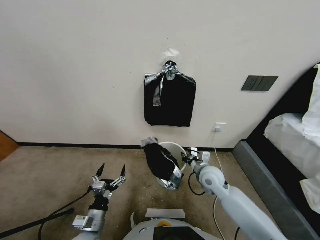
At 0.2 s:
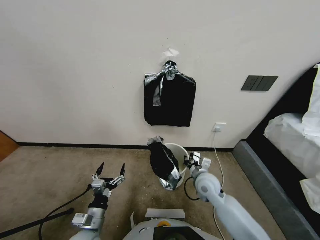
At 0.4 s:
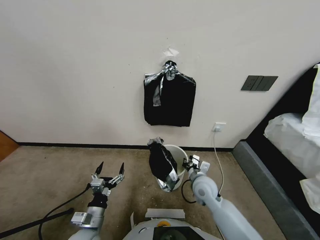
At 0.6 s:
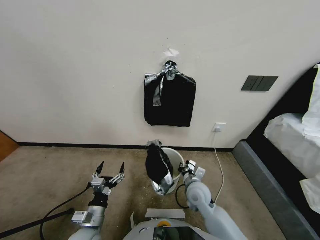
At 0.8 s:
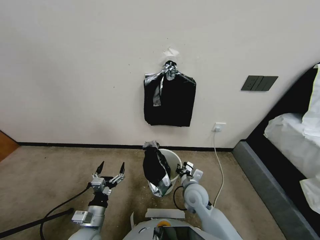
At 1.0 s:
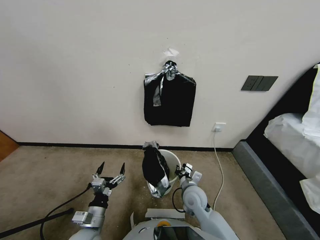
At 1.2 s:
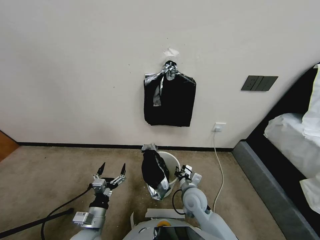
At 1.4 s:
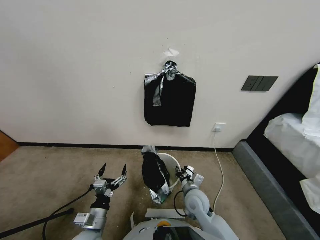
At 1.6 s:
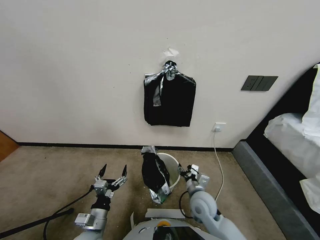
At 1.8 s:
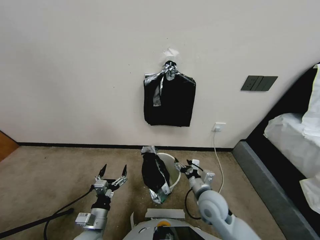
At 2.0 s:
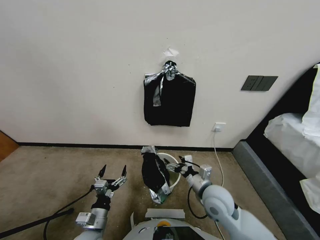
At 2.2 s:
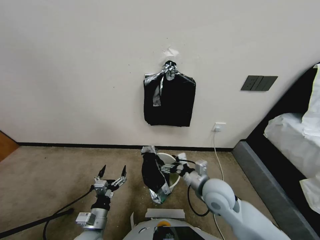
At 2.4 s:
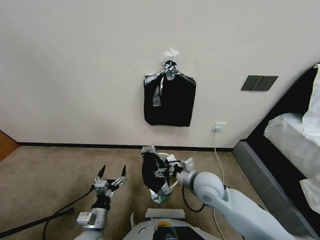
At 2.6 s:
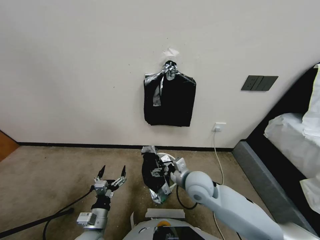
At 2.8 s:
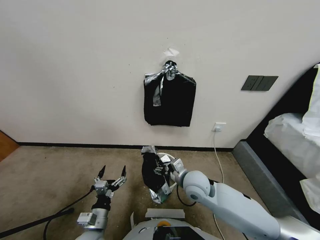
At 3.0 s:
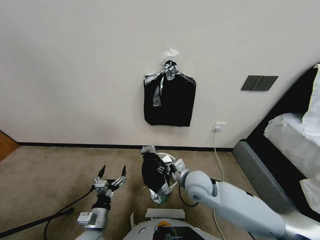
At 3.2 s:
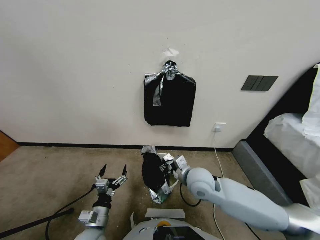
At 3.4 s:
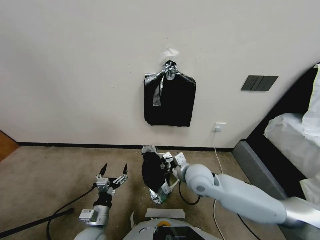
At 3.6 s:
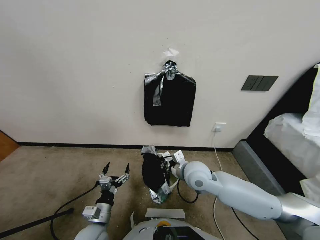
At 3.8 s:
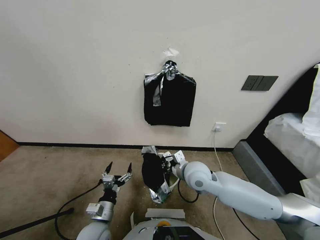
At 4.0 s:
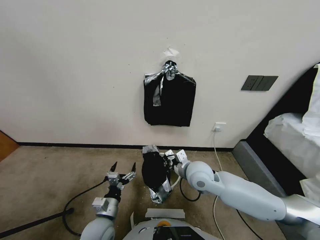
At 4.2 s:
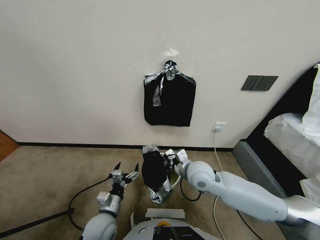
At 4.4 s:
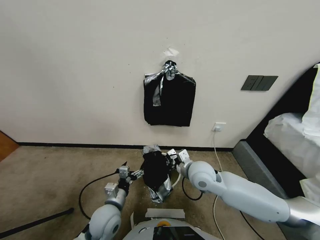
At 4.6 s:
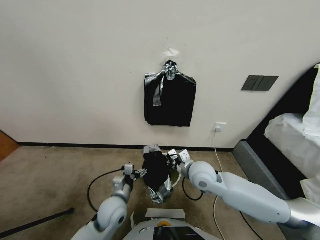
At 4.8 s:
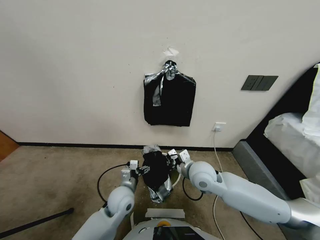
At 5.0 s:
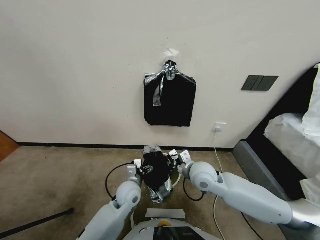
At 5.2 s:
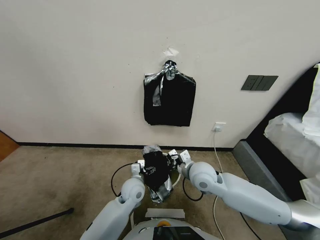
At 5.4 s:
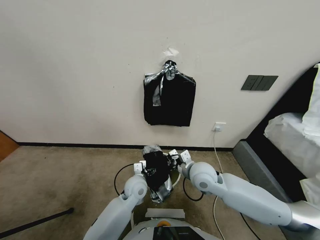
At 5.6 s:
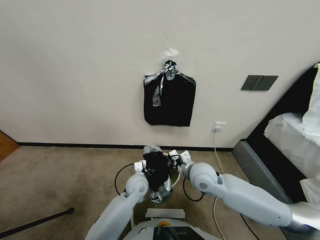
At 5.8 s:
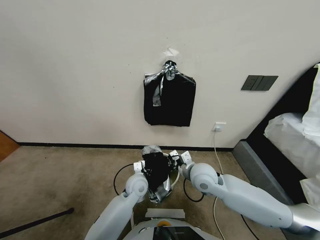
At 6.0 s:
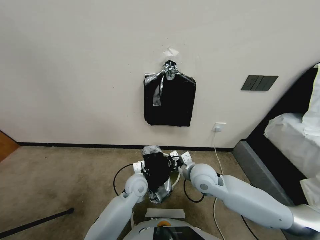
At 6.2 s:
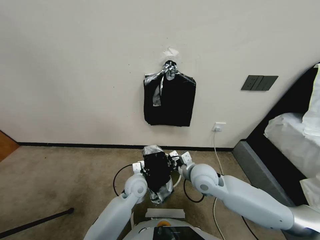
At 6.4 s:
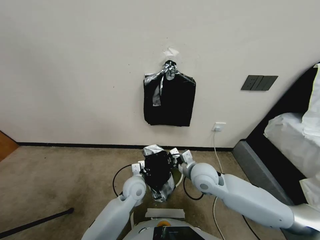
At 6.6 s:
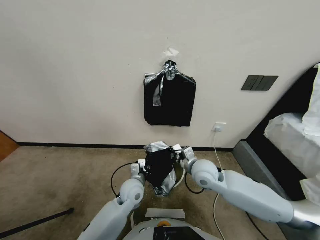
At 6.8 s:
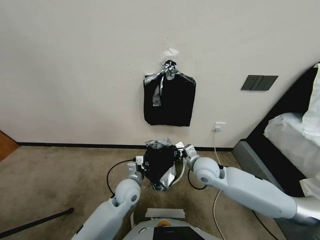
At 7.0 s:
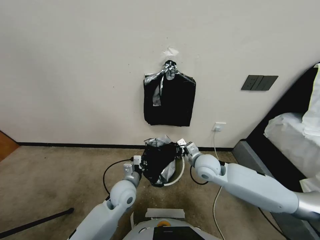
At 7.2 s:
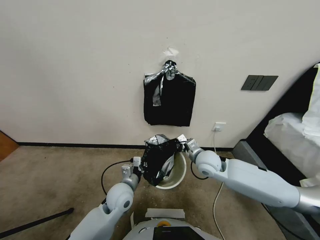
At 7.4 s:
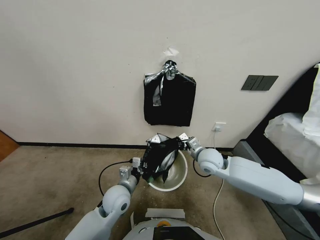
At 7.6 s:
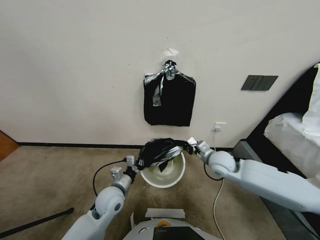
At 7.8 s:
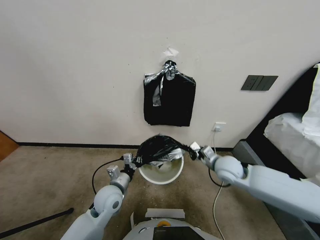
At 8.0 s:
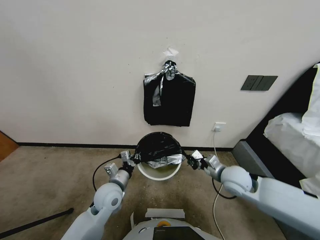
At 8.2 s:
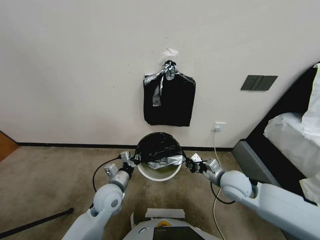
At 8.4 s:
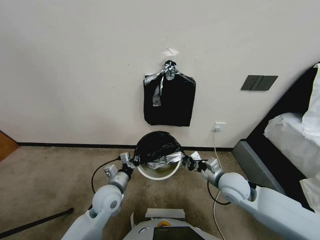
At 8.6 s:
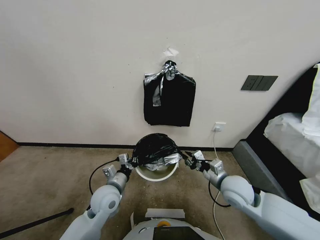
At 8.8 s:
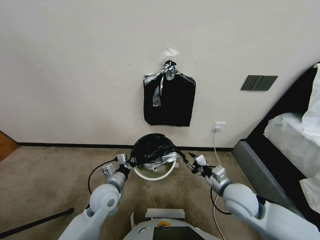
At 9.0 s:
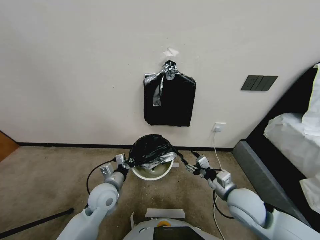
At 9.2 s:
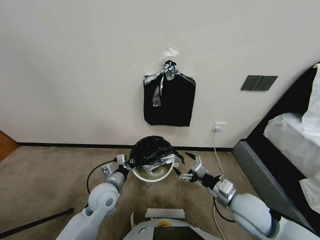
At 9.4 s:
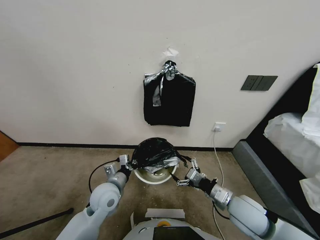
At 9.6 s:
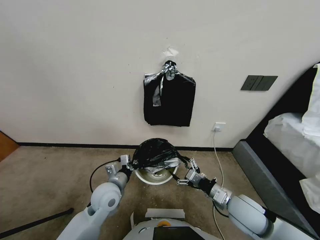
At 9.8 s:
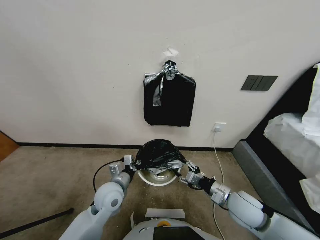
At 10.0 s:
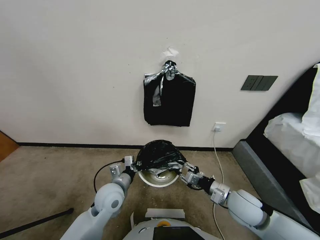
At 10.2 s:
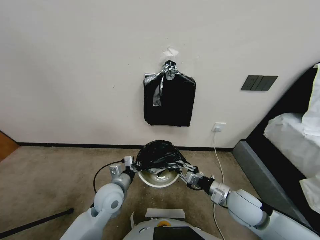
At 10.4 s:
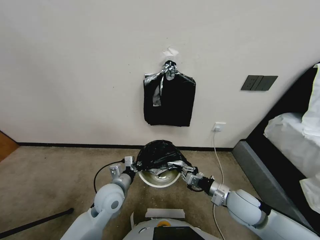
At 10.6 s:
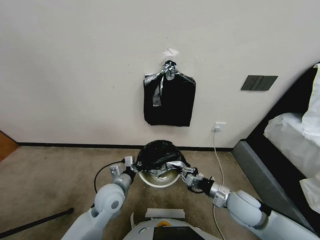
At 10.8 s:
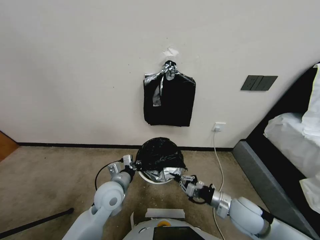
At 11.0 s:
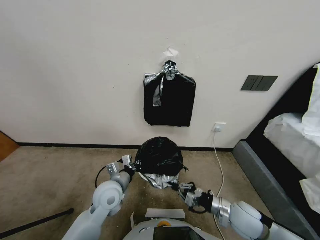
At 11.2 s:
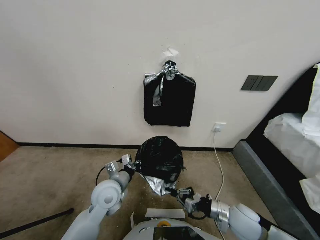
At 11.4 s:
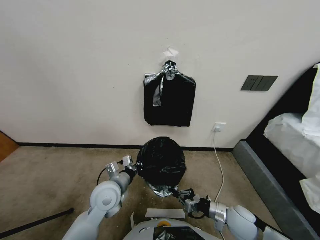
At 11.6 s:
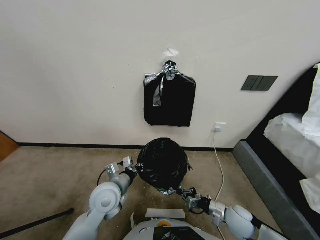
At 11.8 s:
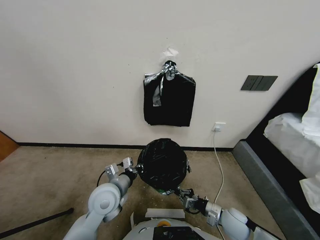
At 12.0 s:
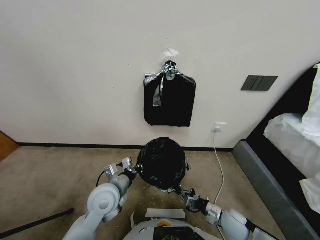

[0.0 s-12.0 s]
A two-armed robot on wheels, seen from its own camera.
Task of the whole recording: Place a trash bag onto the trash bin.
0.0 to 1.6 s: The right gripper heads backward, covering approximately 10 cm, and opens its fingers.
1.6 to 3.0 s: The right gripper shifts roughly 10 cm upward.
3.0 to 4.4 s: The right gripper closes its fingers. Meanwhile the left gripper is displaced forward and to the right by some 10 cm.
4.4 to 6.0 s: The left gripper shifts approximately 15 cm forward and to the right, and closes.
6.0 to 7.6 s: The left gripper is displaced to the left and backward by about 10 cm, while the right gripper heads to the right, covering approximately 10 cm.
7.6 to 9.0 s: The right gripper shifts some 15 cm backward, and opens up.
9.0 to 10.4 s: The right gripper closes its fingers.
10.4 to 12.0 s: The right gripper shifts approximately 15 cm downward.

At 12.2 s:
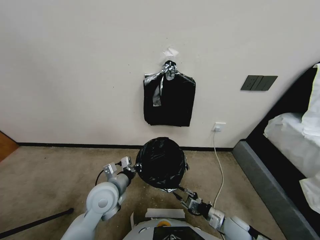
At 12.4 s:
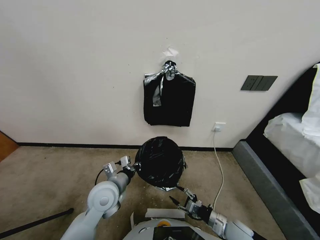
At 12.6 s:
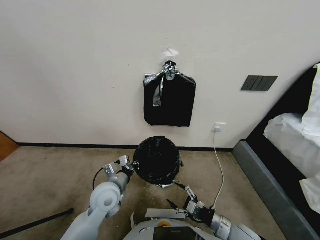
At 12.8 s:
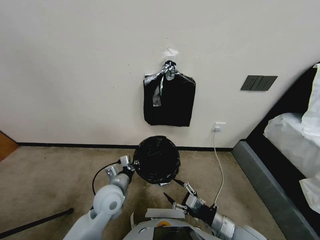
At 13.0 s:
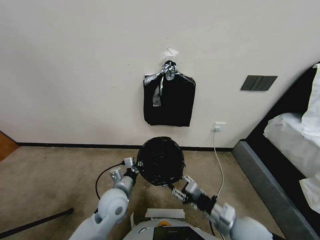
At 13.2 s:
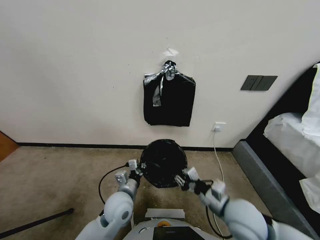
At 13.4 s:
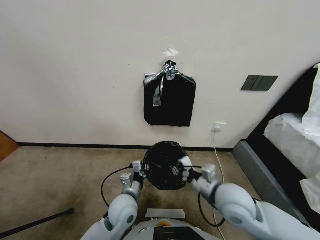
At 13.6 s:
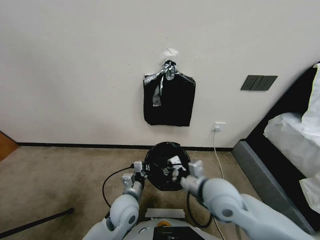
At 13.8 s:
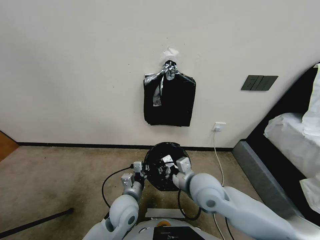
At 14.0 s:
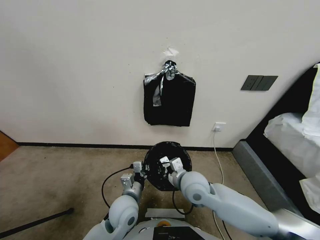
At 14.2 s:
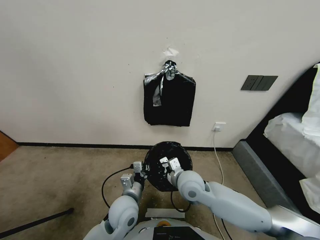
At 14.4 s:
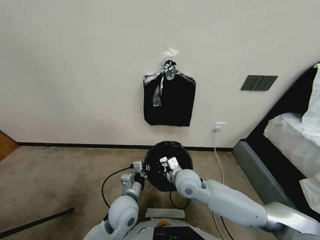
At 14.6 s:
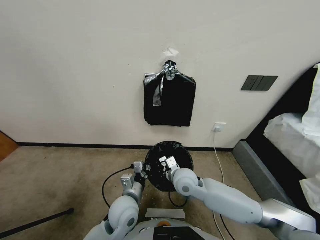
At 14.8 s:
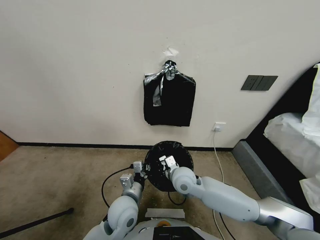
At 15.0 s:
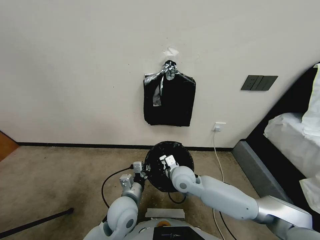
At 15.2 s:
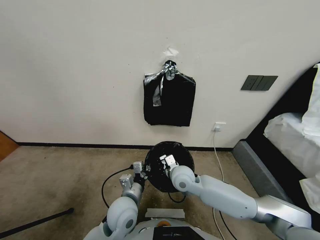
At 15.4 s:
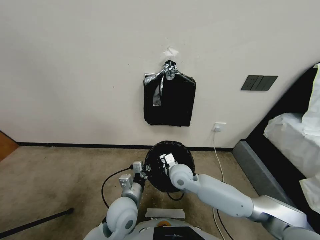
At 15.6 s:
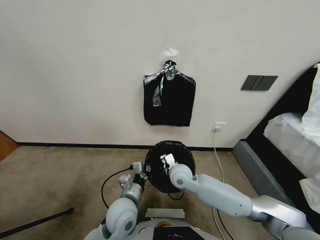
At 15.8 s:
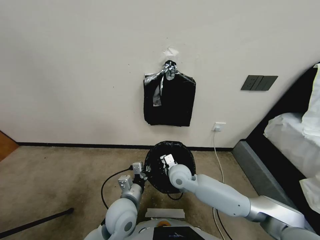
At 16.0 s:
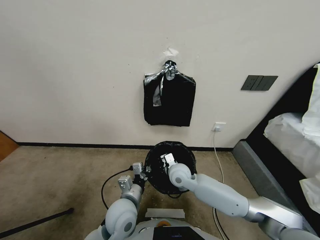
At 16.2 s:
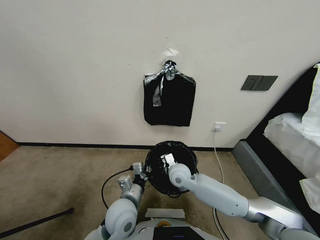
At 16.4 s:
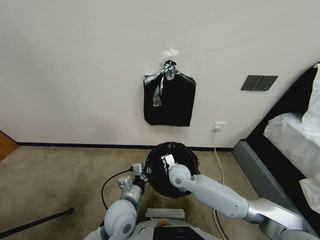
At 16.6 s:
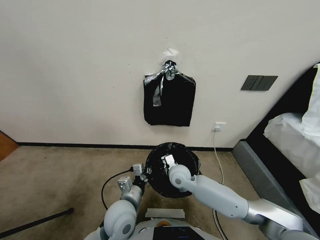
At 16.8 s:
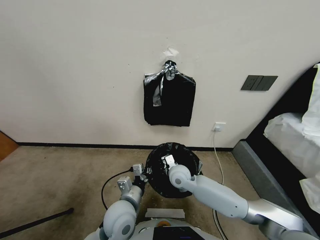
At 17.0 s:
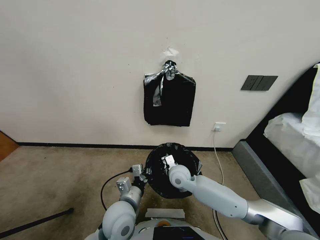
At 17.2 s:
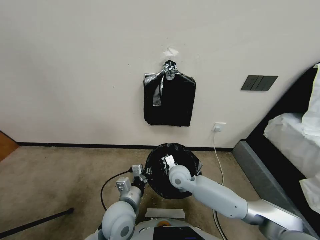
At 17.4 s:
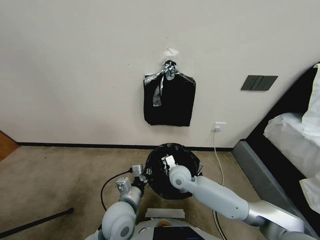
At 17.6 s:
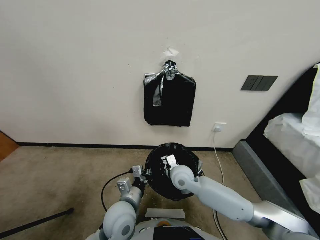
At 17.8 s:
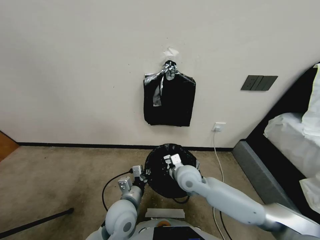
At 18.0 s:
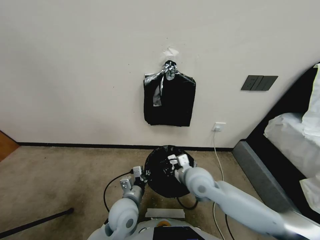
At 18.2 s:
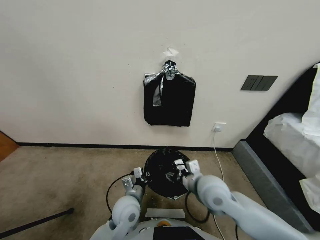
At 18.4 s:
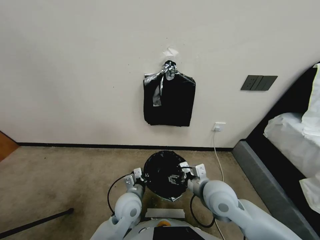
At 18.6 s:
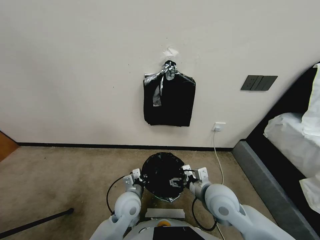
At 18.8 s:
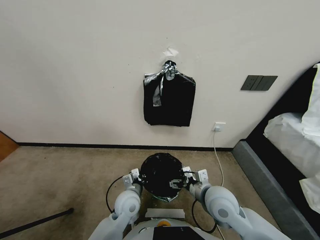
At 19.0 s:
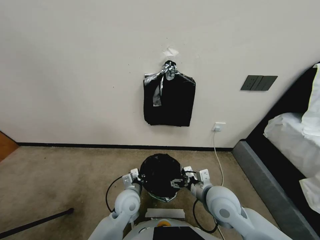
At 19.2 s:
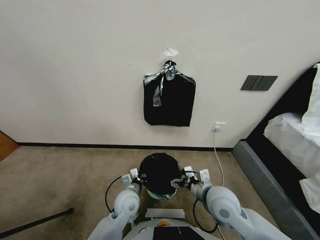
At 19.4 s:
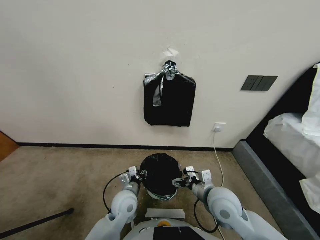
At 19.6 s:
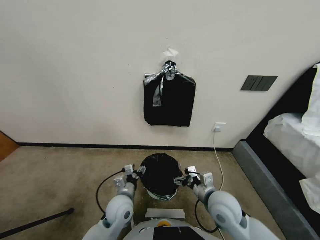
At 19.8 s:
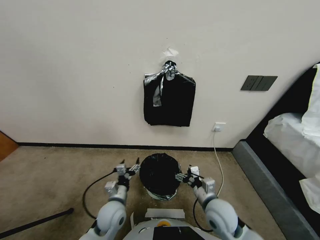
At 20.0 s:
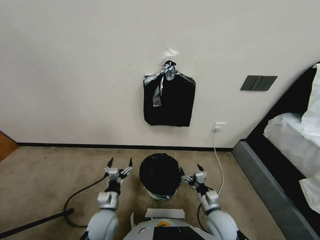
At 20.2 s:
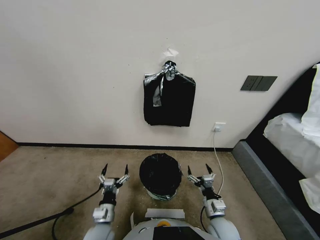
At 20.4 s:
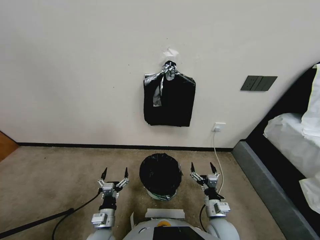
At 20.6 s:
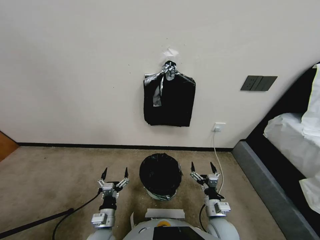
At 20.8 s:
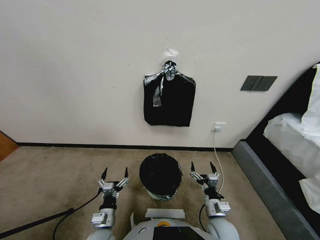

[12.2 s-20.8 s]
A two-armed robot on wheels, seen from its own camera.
Task of the whole recording: Place a trash bag onto the trash bin.
12.2 to 13.6 s: The right gripper moves upward, to the left and forward, approximately 30 cm, and closes. The left gripper heads to the right and downward, covering about 10 cm.
13.6 to 15.0 s: The right gripper shifts about 10 cm downward and forward.
15.0 to 16.6 s: There are only small adjustments of the grippers.
16.6 to 18.0 s: The right gripper heads upward, backward and to the right, covering about 15 cm, and opens up.
18.0 to 19.4 s: The right gripper shifts by about 5 cm, and opens its fingers, while the left gripper opens its fingers.
19.4 to 20.8 s: The left gripper goes about 15 cm backward, to the left and downward. The right gripper travels downward and backward by about 15 cm.
